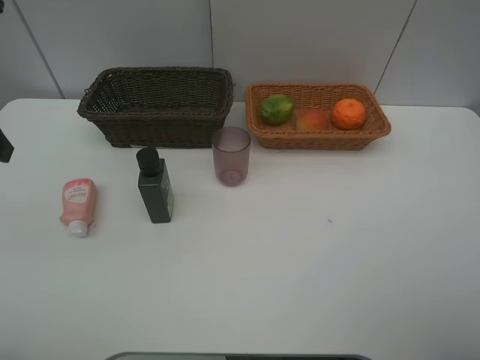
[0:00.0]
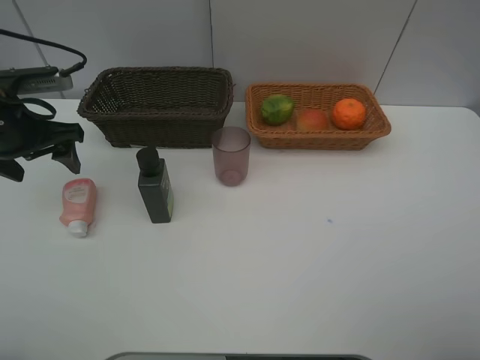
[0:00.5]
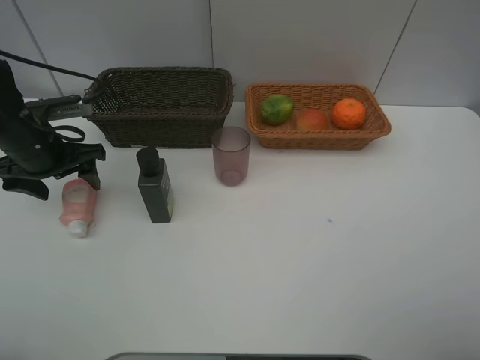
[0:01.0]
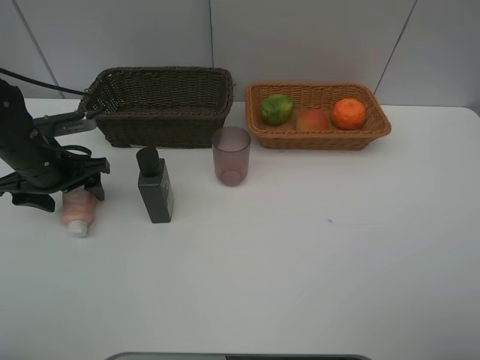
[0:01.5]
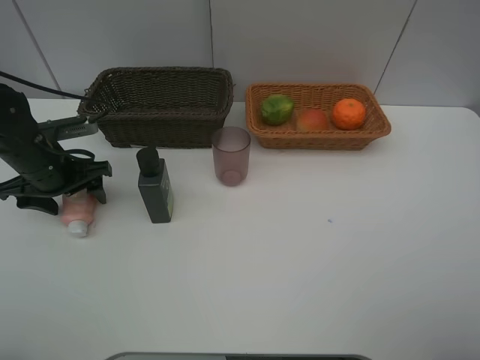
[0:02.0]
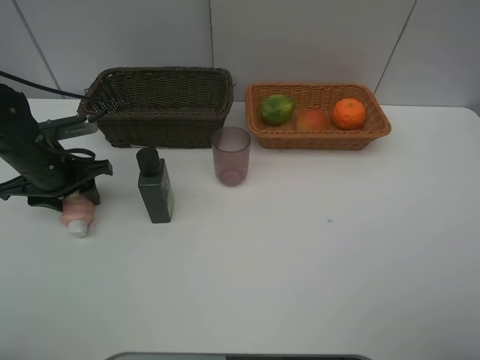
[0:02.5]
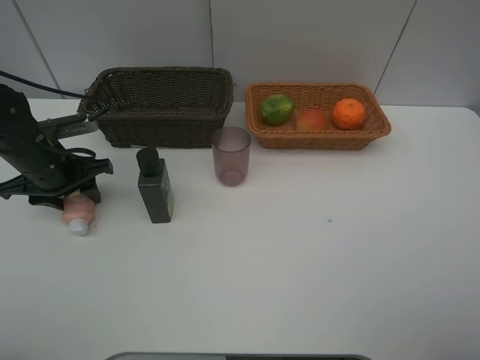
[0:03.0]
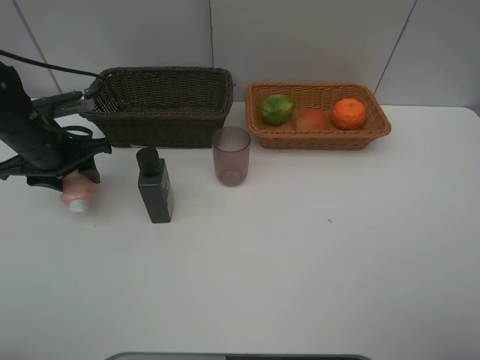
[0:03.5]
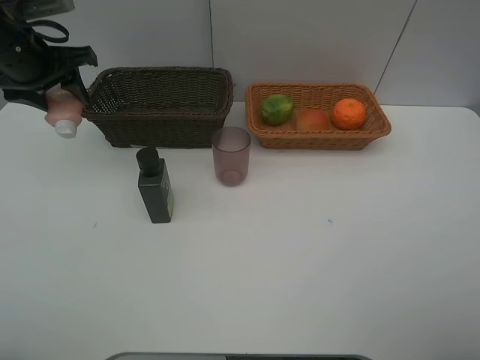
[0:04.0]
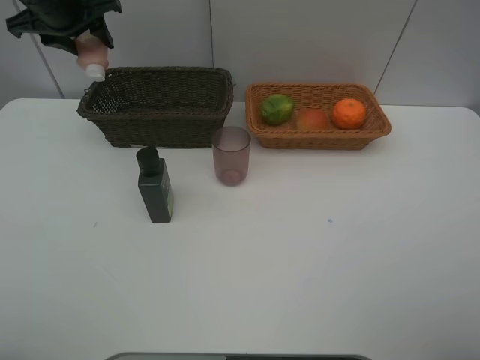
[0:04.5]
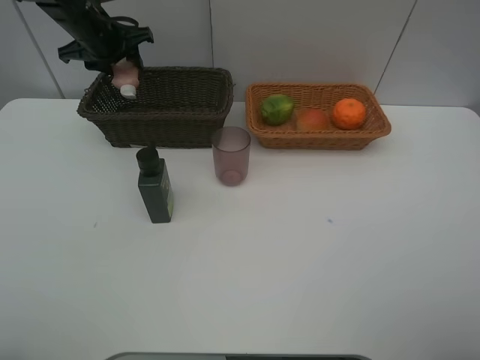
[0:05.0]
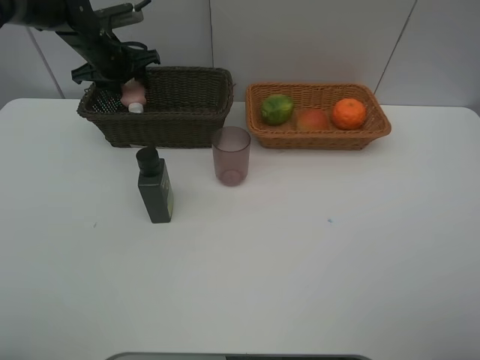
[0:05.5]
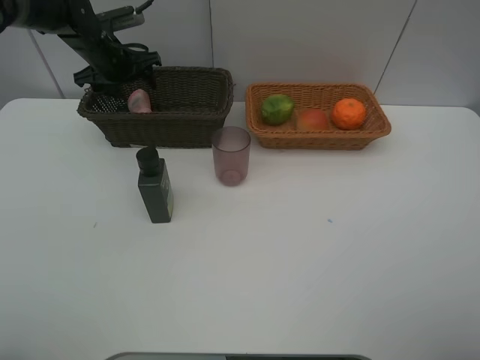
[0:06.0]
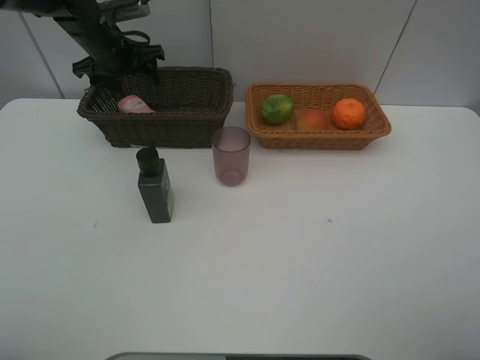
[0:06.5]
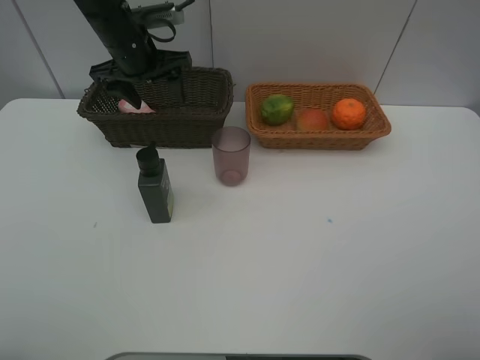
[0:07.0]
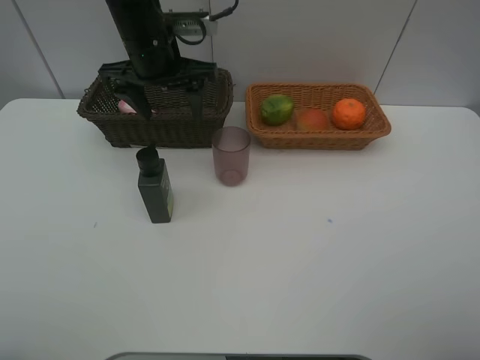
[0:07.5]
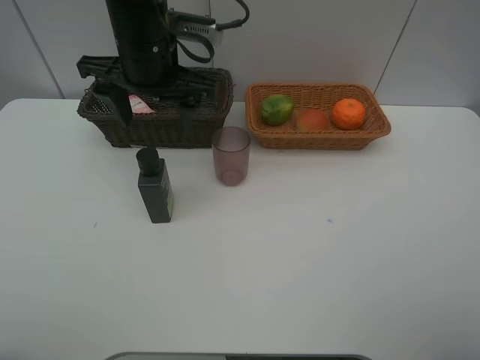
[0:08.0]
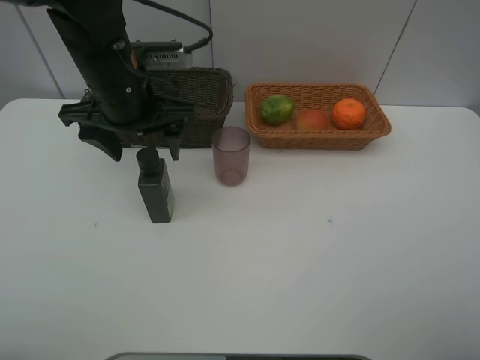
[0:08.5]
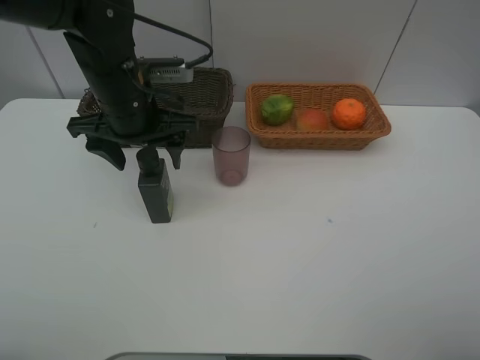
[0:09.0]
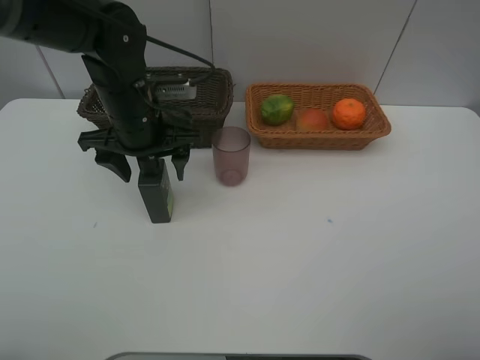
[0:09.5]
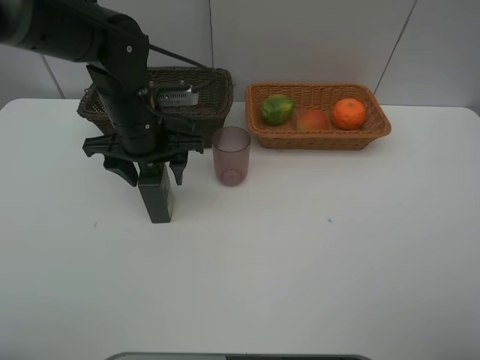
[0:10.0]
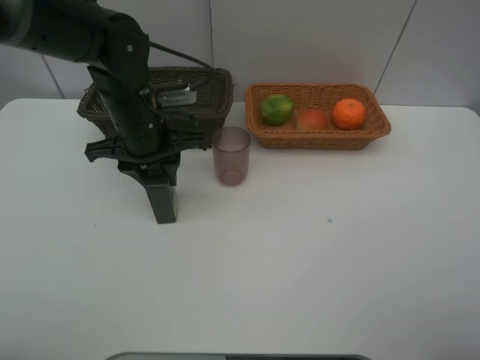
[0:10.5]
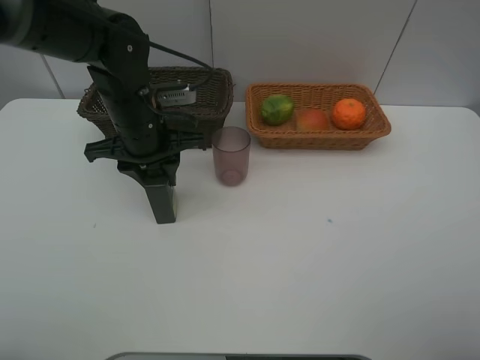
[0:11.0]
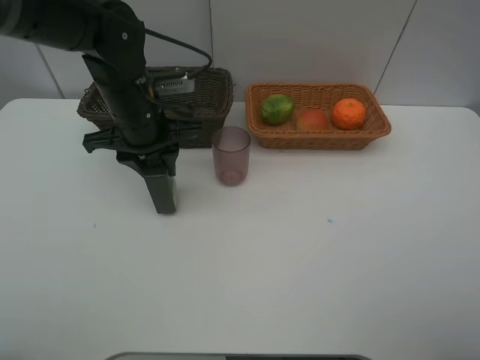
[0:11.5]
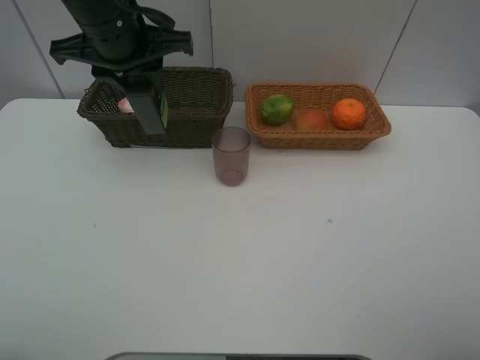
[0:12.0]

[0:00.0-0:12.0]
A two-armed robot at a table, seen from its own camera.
Task of the whole recording: place multiple objects separately in different baskets.
0:00.0 to 0:02.0: The left gripper shifts approximately 20 cm downward and forward.
0:02.0 to 0:04.0: The left gripper heads upward, covering roughly 15 cm.
0:04.0 to 0:06.0: The left gripper moves forward and downward, approximately 15 cm.
0:06.0 to 0:08.0: The left gripper heads backward, to the right and upward, covering approximately 25 cm.
0:08.0 to 0:10.0: The left gripper shifts approximately 10 cm downward.
0:10.0 to 0:12.0: The left gripper heads upward, covering some 15 cm.

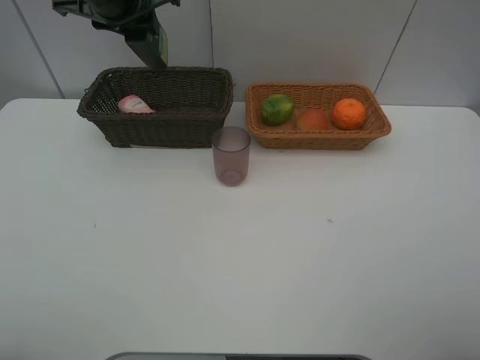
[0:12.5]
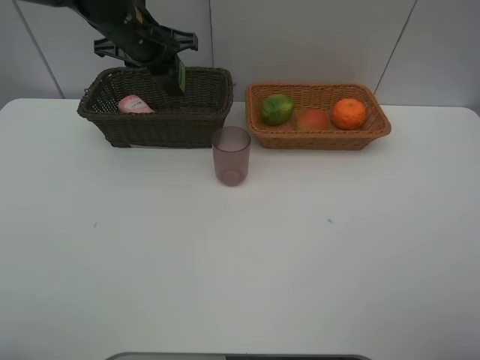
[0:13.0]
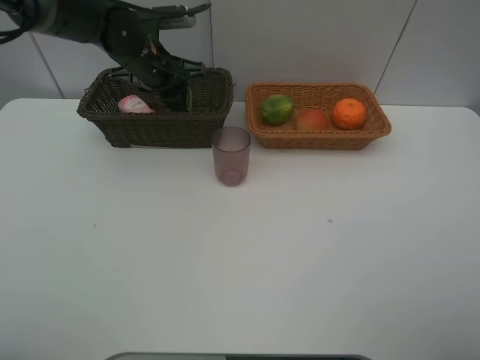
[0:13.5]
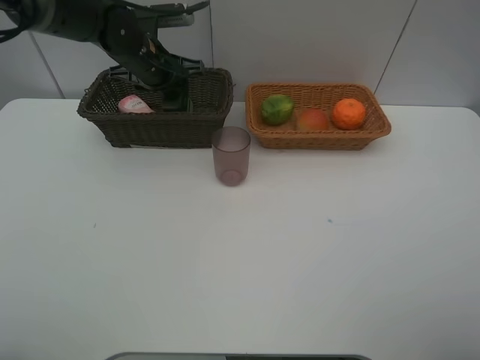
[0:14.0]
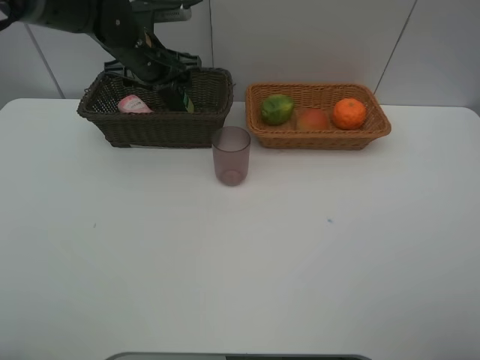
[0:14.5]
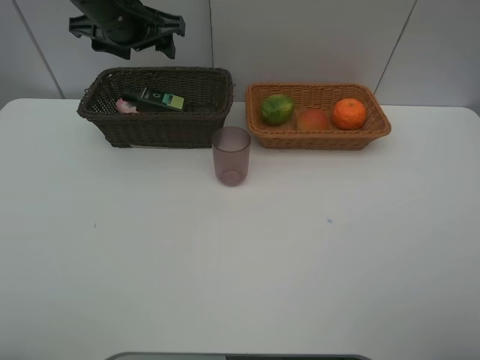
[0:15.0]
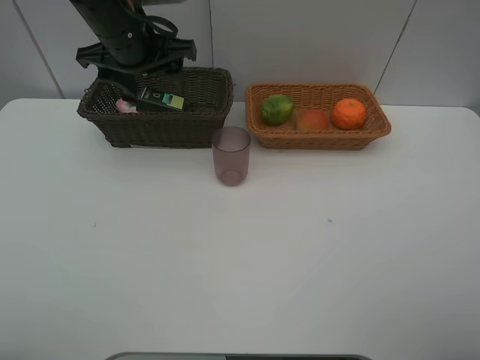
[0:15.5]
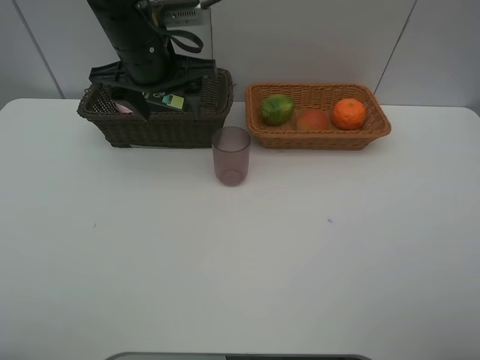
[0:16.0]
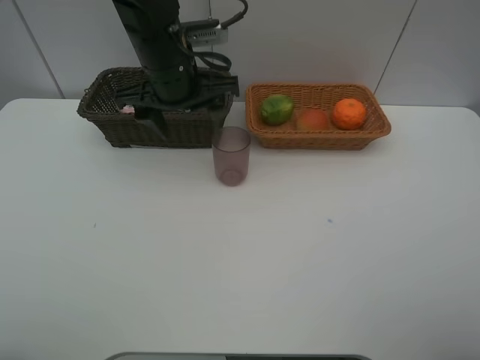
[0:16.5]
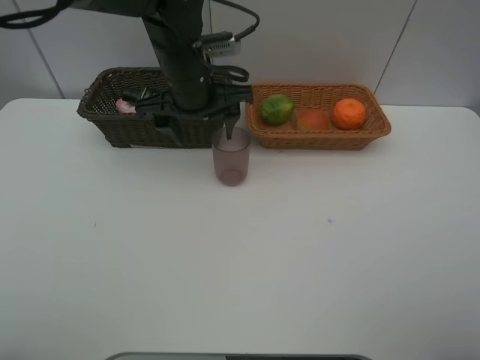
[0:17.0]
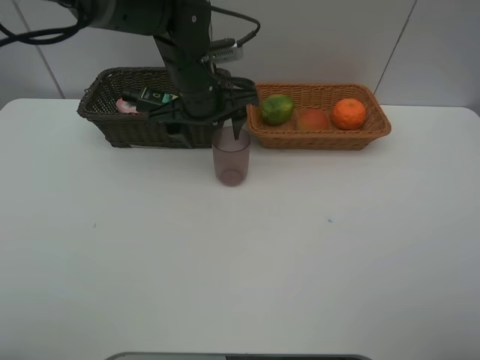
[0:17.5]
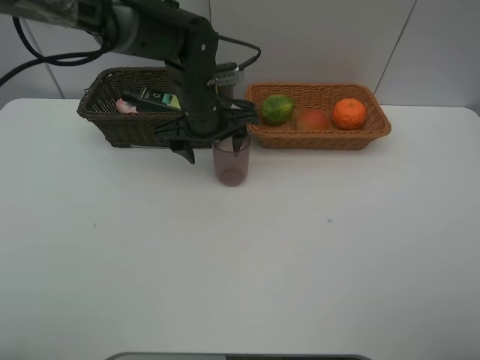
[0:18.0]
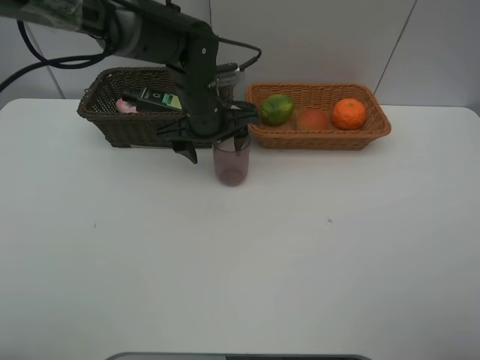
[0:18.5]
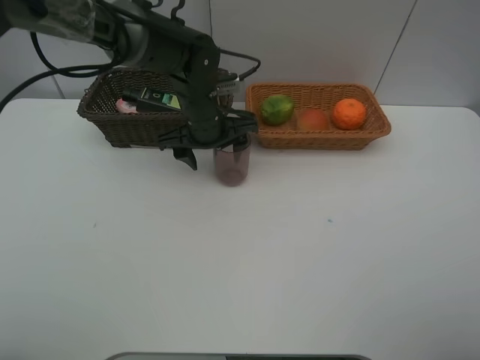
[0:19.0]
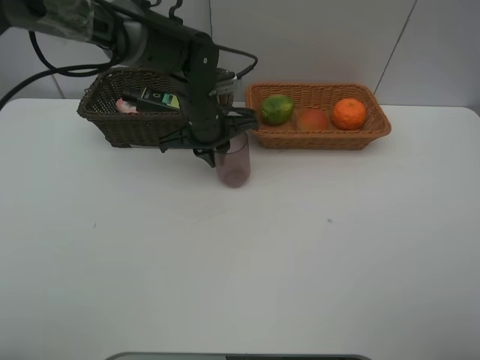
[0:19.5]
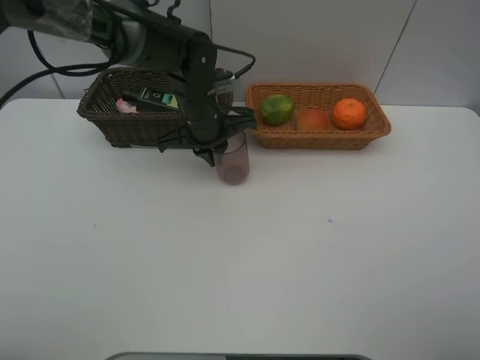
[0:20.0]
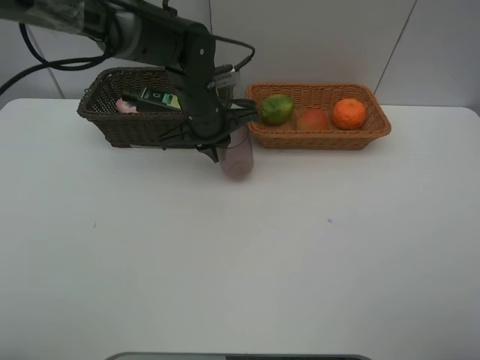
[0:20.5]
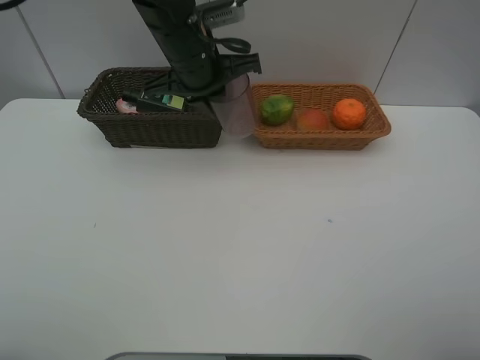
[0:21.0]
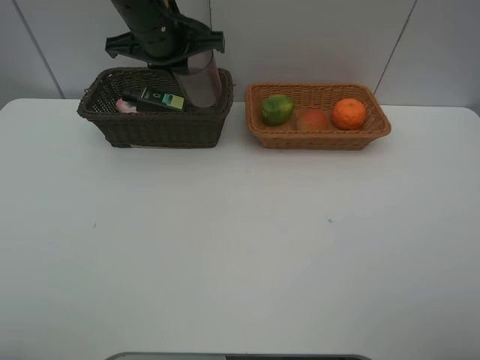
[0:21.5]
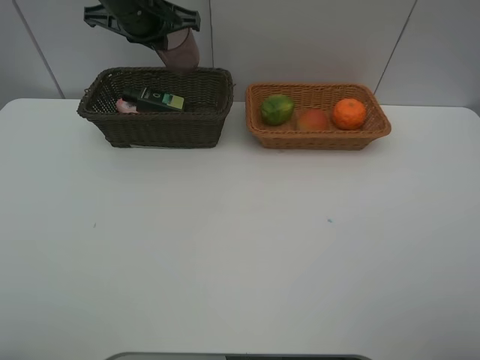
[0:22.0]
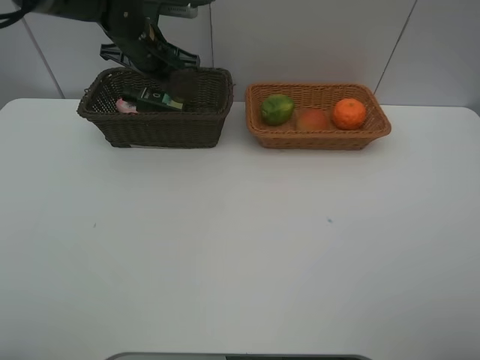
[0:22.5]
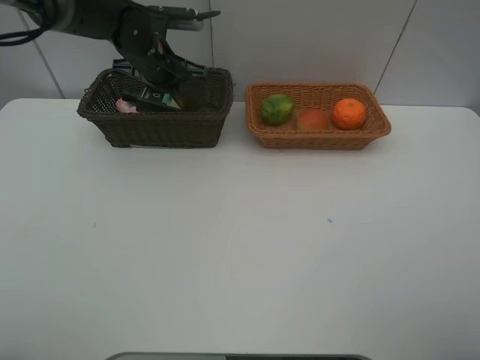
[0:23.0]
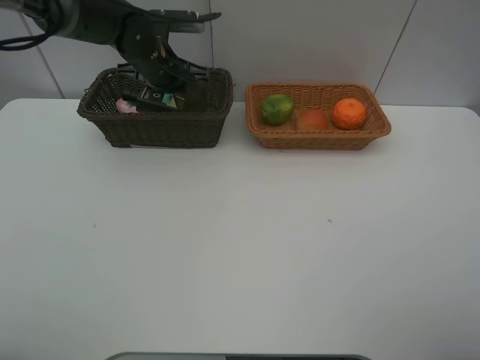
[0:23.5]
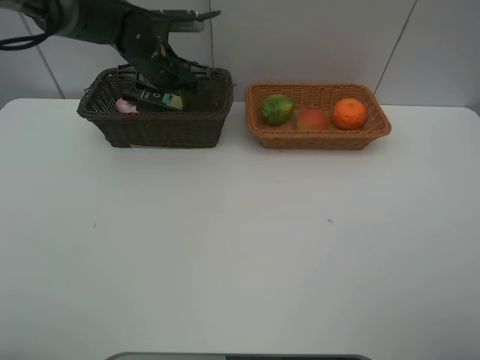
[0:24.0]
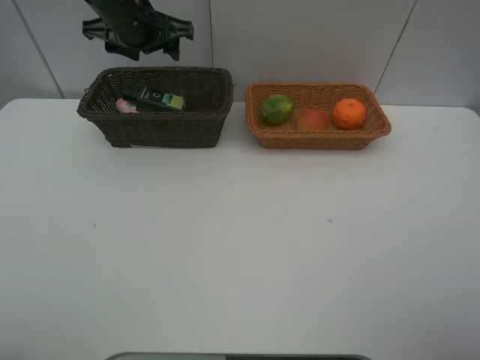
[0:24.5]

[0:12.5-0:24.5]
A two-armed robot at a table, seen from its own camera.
Task of the whole recording: place multiple objects separately in different baskets.
0:12.5 to 0:14.5: The left gripper travels downward by some 10 cm, and opens.
0:14.5 to 0:16.5: The left gripper travels backward and to the right by some 10 cm.
0:16.5 to 0:18.5: The left gripper shifts roughly 10 cm downward.
0:18.5 to 0:20.5: The left gripper closes up.
0:20.5 to 0:22.5: The left gripper goes about 15 cm to the left, forward and upward.
0:22.5 to 0:24.5: The left gripper heads upward, covering about 5 cm, and opens its fingers.

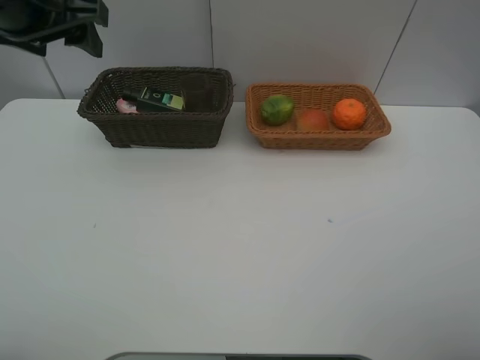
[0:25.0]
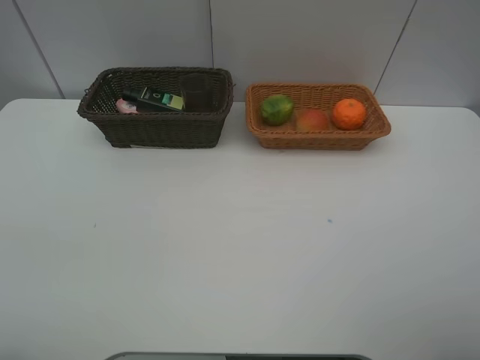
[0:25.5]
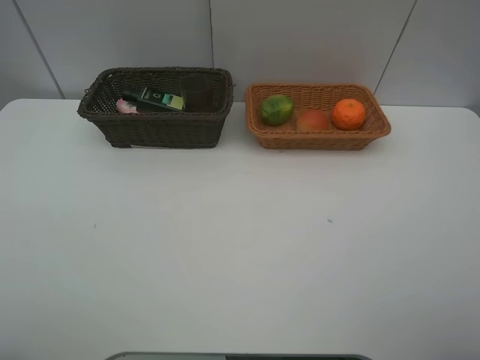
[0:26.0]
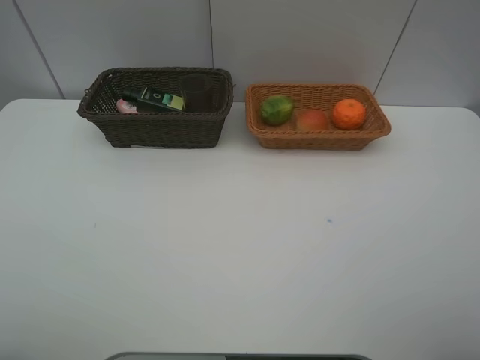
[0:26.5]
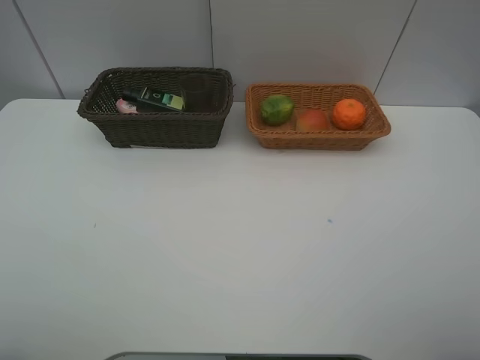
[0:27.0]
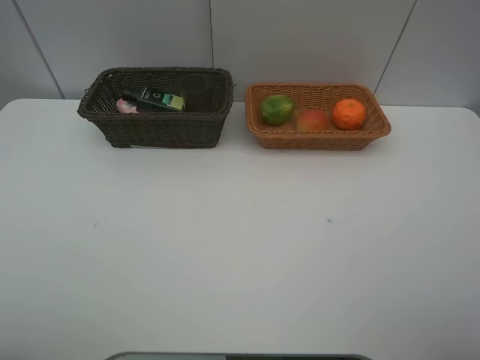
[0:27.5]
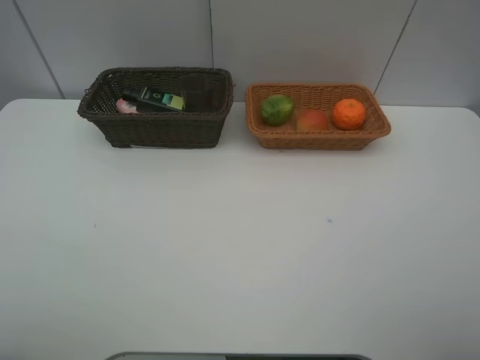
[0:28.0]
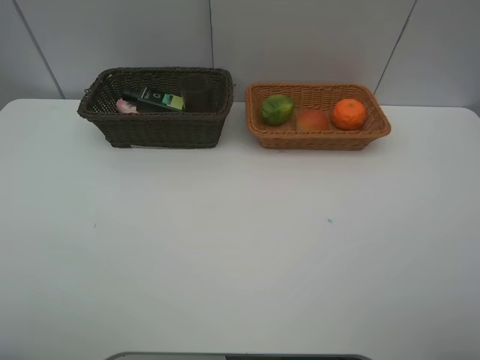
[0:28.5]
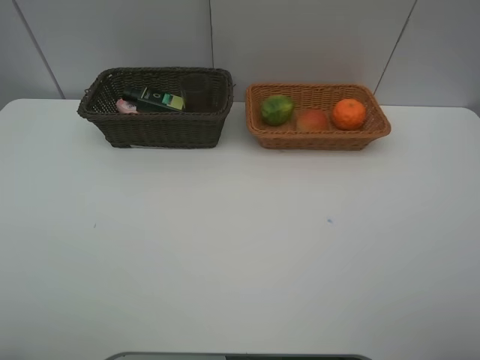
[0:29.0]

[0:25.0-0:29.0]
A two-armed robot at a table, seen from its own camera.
Task of the whole recording: place multiple objects separately in different baskets.
0:25.0 to 0:27.0: The left gripper travels backward by approximately 30 cm.
